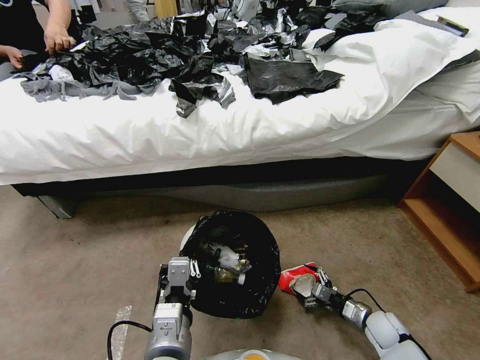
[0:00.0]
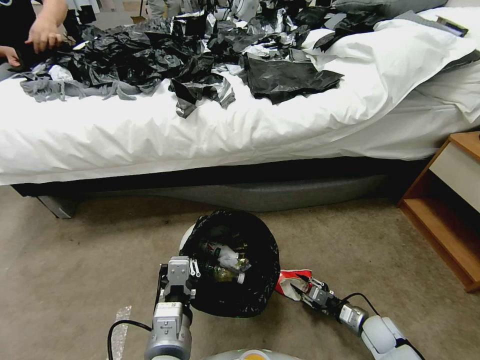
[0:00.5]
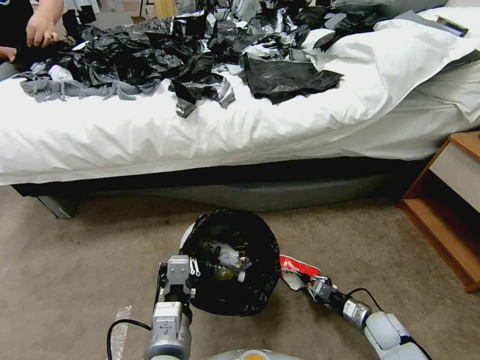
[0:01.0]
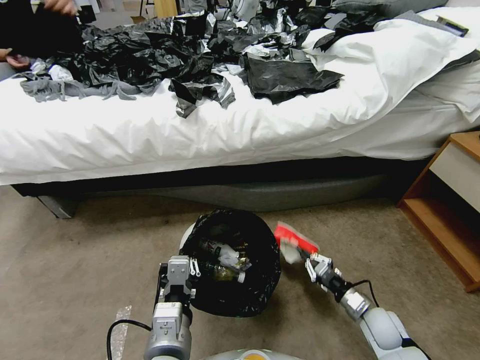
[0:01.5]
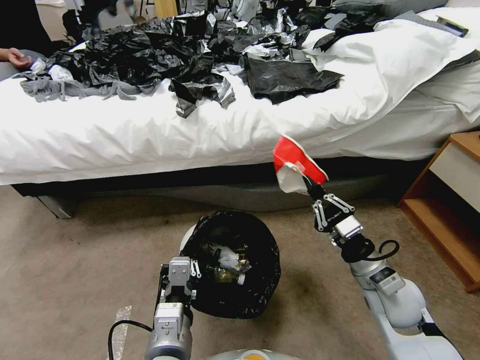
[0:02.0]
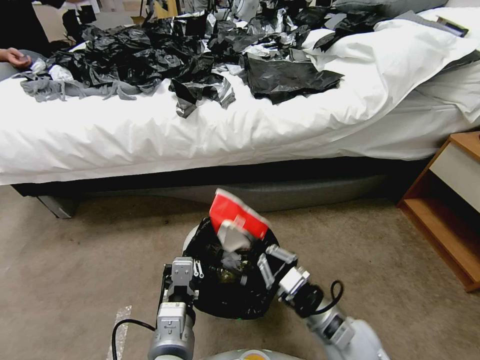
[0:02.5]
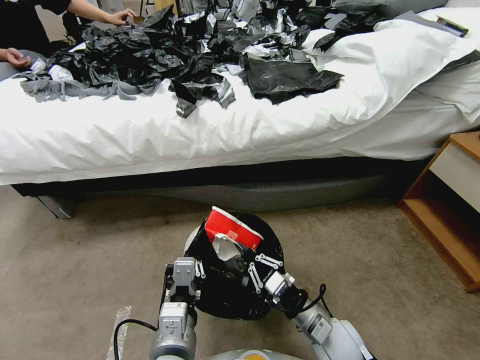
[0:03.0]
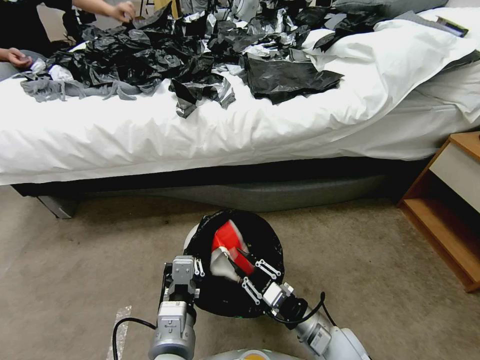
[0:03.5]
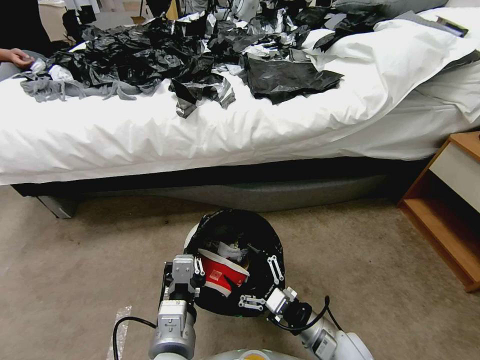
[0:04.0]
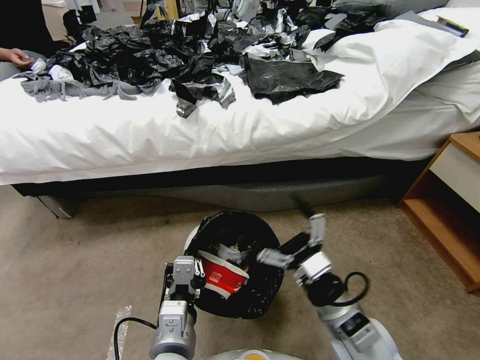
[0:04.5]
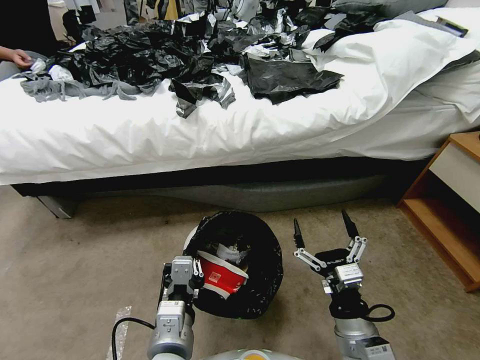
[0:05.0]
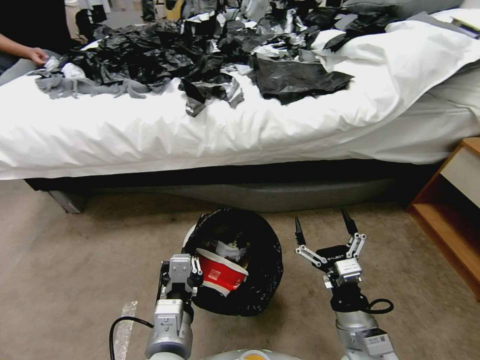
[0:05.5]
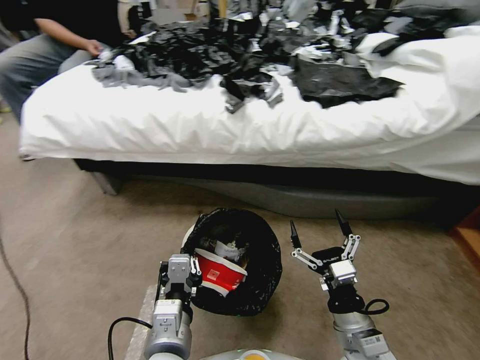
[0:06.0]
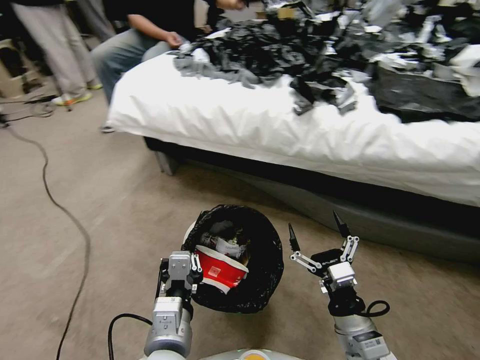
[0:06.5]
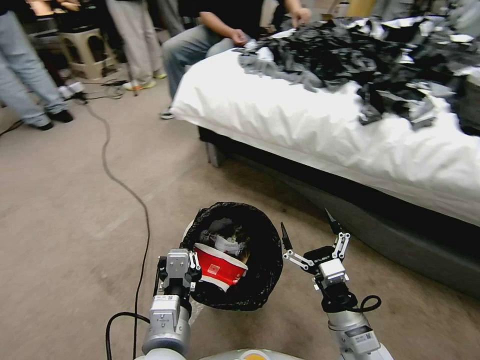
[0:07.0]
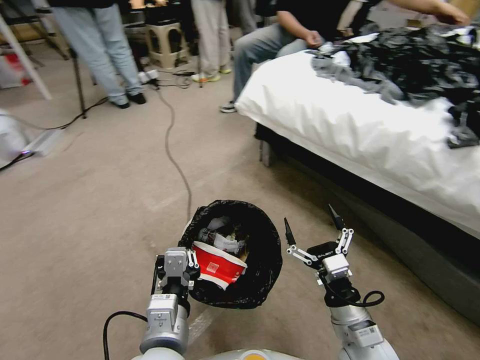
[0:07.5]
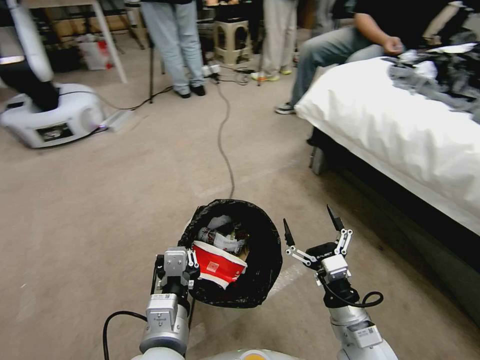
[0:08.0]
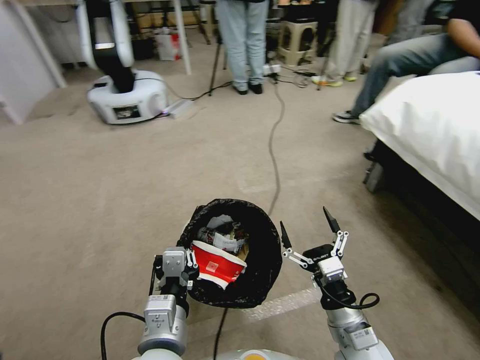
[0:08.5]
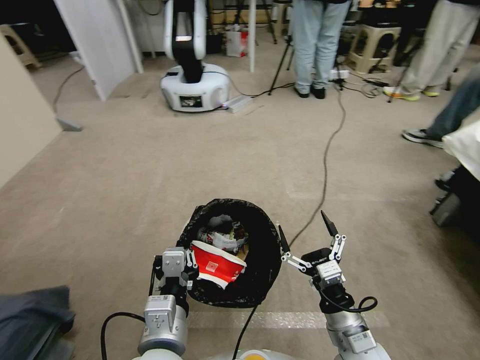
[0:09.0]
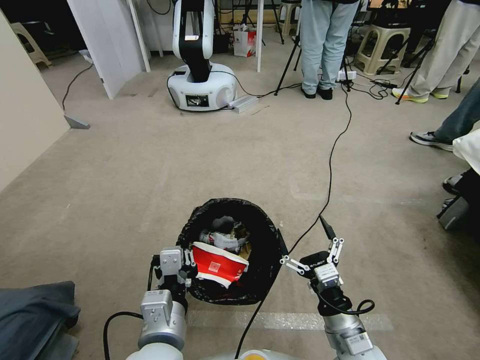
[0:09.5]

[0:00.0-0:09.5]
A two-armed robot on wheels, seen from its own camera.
Task of the whole recording: Pick up the trash bin, then pick up the garbage from the floor and place it into the trash bin.
0:00.0 to 0:02.0: The right gripper travels upward by some 25 cm, and closes its fingers.
0:02.0 to 0:04.0: The right gripper travels to the left, downward and backward by some 15 cm, and opens.
0:04.0 to 0:05.5: The right gripper goes about 5 cm upward.

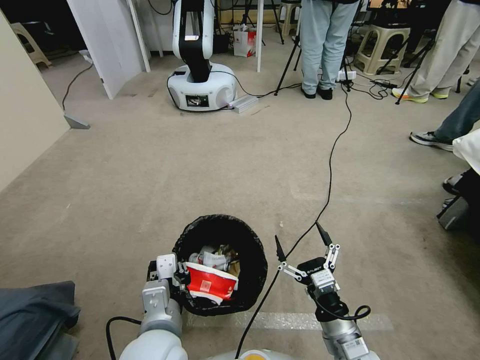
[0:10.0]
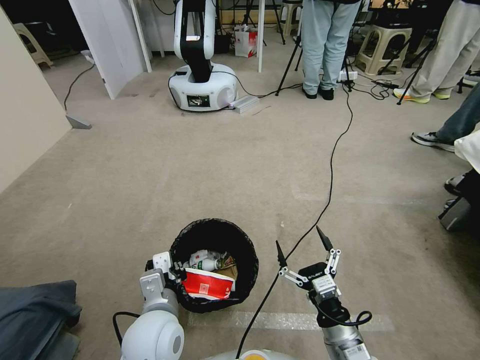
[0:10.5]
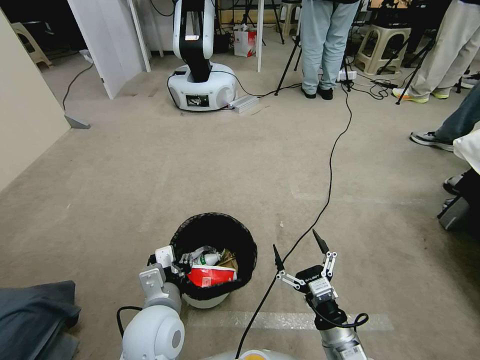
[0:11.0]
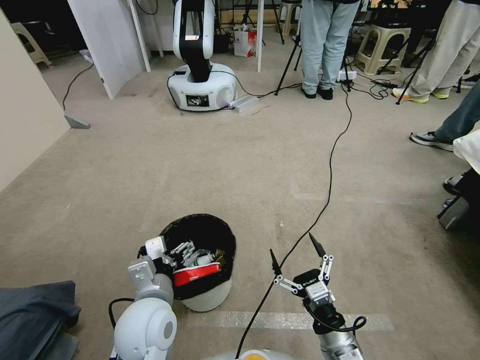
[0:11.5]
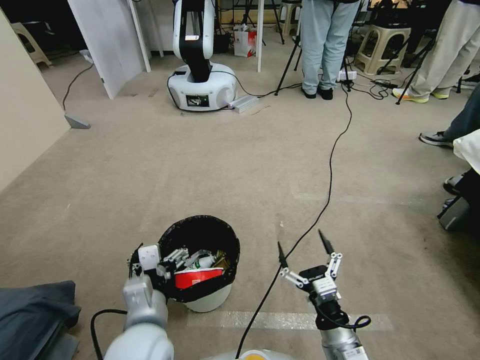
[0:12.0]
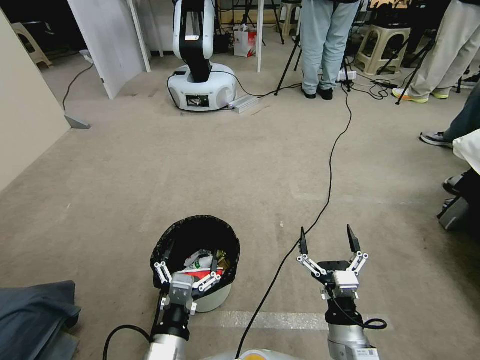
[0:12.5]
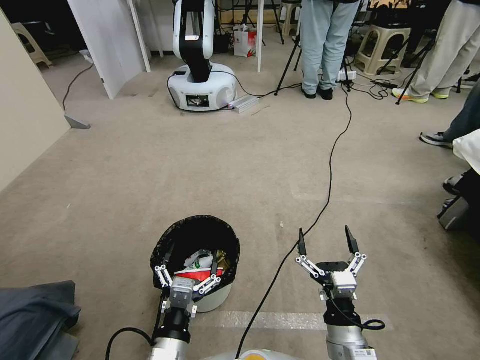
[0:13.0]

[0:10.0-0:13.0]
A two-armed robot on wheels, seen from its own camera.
Task of the whole recording: Pick up the trash bin, then pick up the garbage from the floor and place it into the trash bin.
0:10.0 to 0:11.5: The left gripper moves forward, roughly 5 cm, and opens up.
0:11.5 to 0:13.0: The left gripper shifts roughly 10 cm backward and downward.

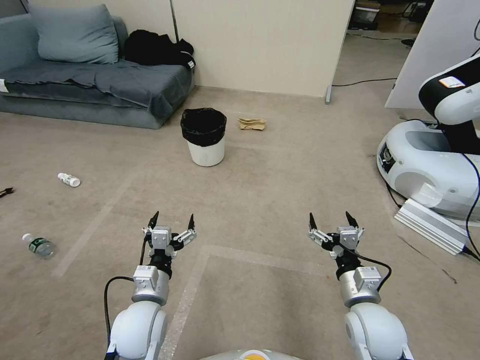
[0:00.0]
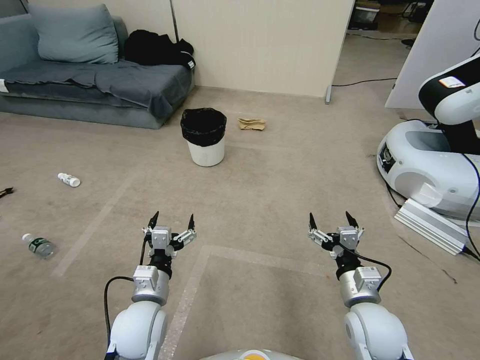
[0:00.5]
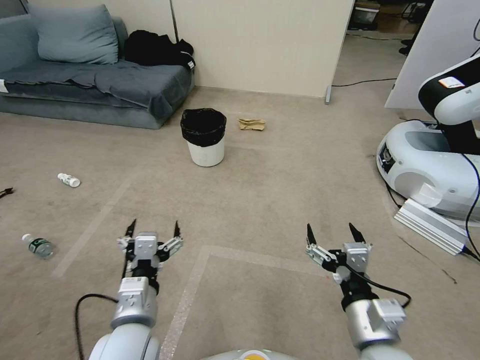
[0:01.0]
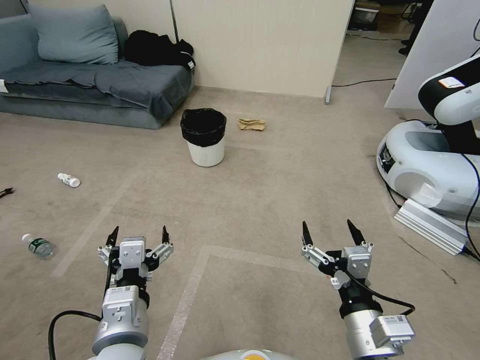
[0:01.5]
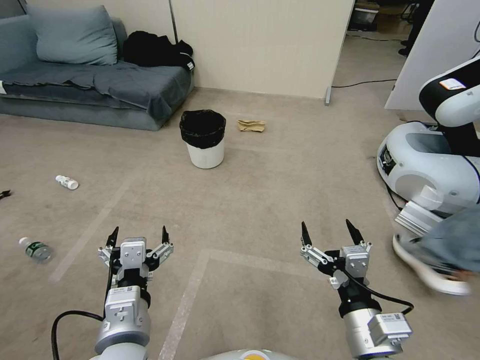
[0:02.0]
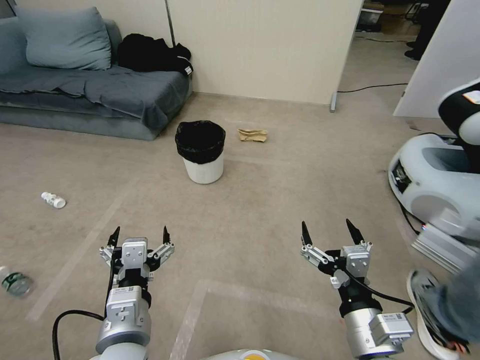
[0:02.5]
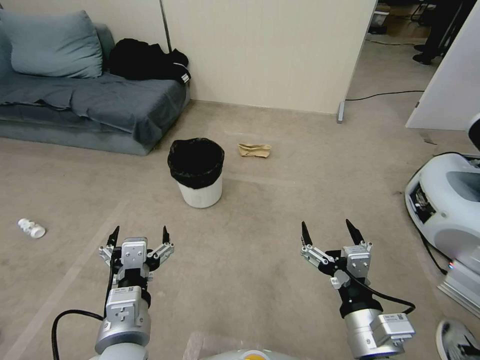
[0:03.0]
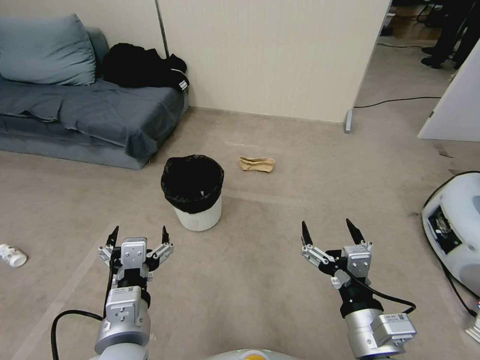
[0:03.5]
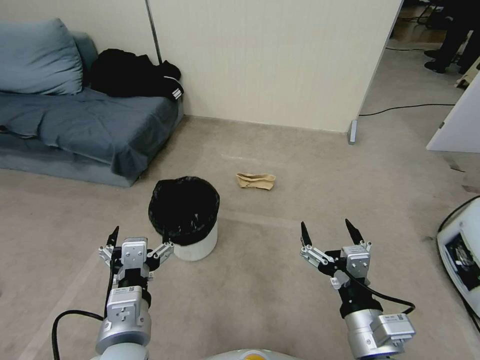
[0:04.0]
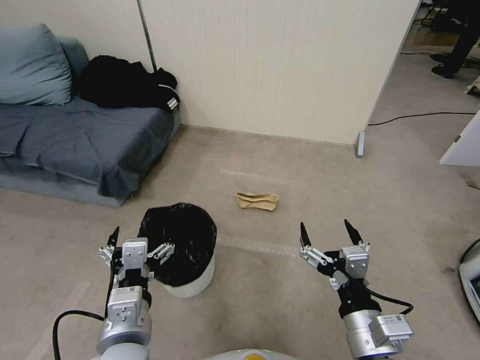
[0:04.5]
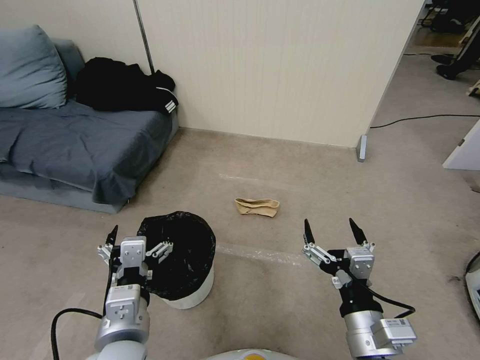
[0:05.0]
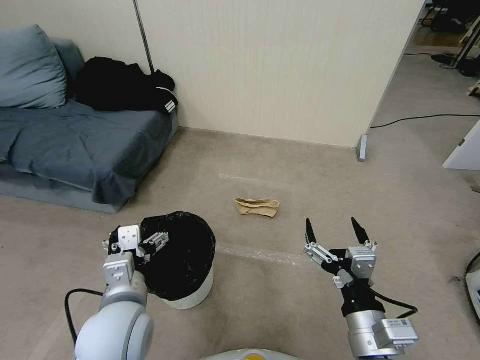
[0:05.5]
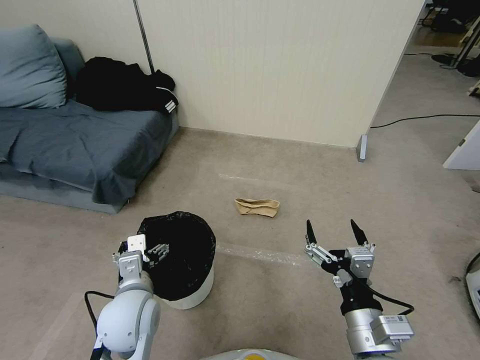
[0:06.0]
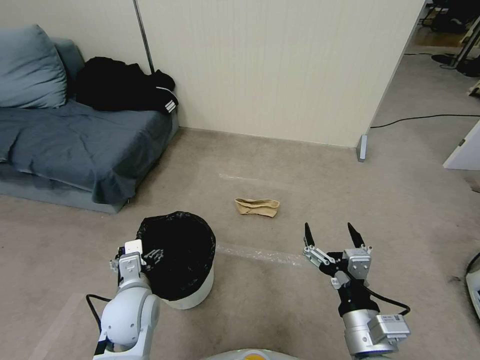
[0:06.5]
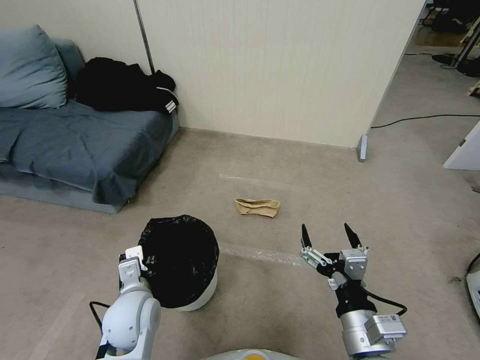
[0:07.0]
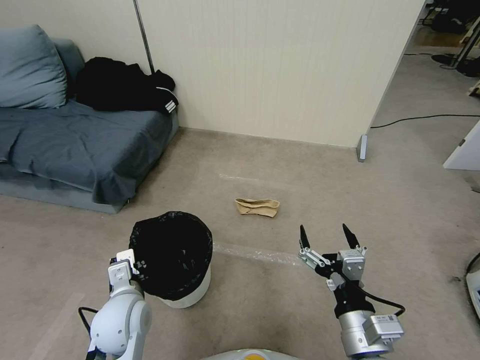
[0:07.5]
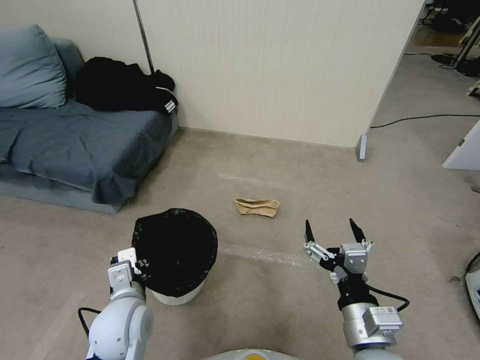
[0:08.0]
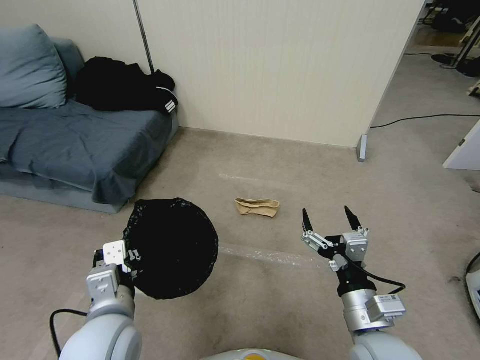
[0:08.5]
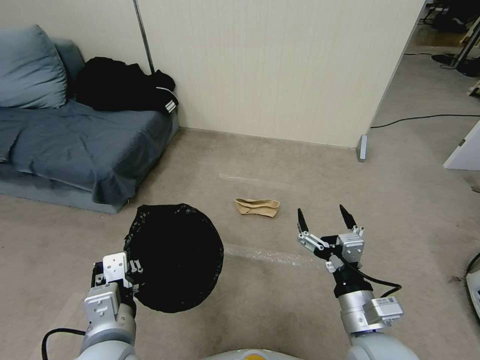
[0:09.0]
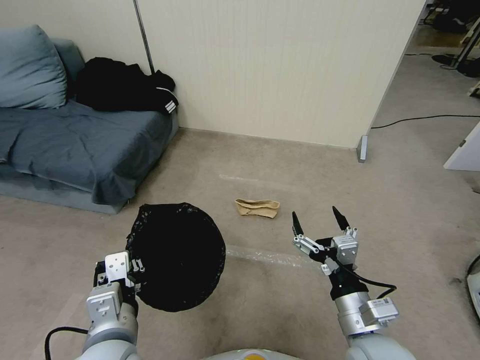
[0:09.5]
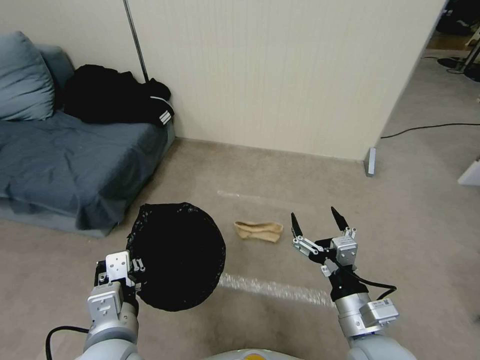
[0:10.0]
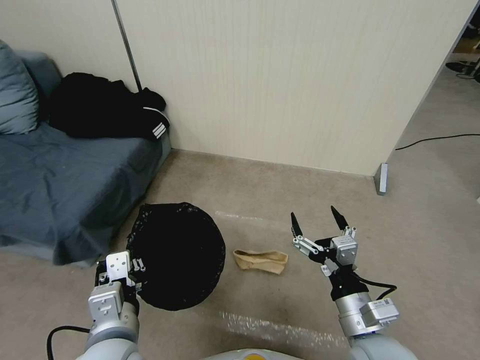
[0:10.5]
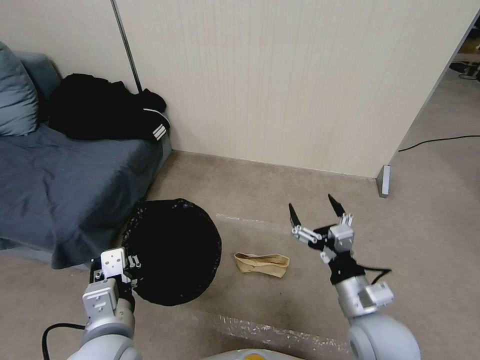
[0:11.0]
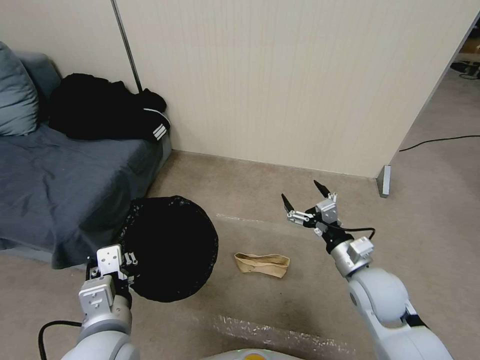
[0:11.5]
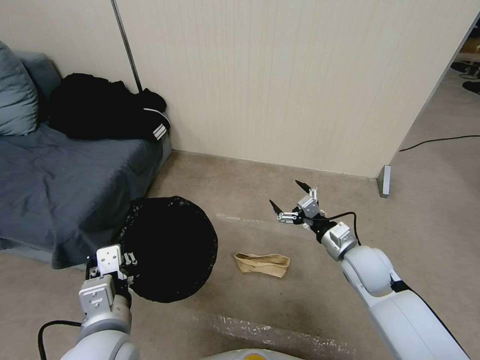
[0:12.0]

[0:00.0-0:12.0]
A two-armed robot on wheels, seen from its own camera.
Task of the whole recording: Pick up the trash bin, then pick up the garbage from the floor and place it into the trash bin.
0:04.0 to 0:06.0: The left gripper is displaced forward and downward by approximately 10 cm.
0:06.0 to 0:08.0: The left gripper closes.
0:08.0 to 0:10.0: The left gripper moves backward and upward, roughly 10 cm.
0:10.0 to 0:12.0: The right gripper moves forward, approximately 20 cm.

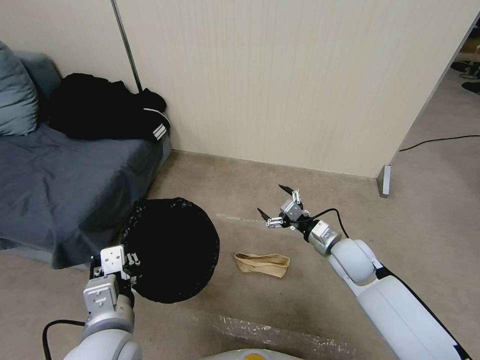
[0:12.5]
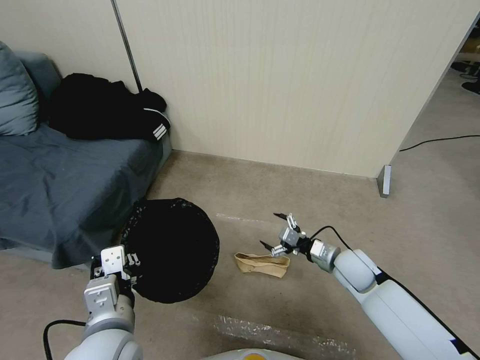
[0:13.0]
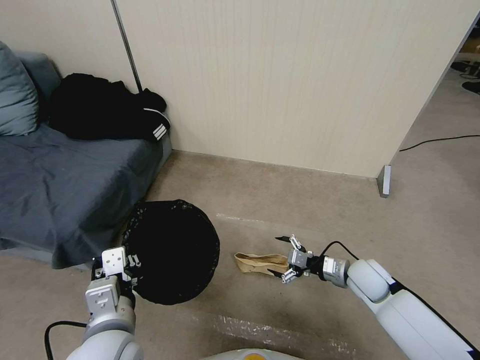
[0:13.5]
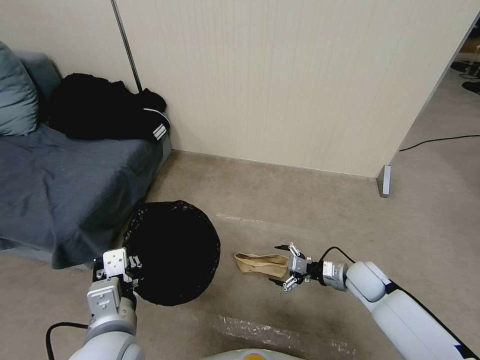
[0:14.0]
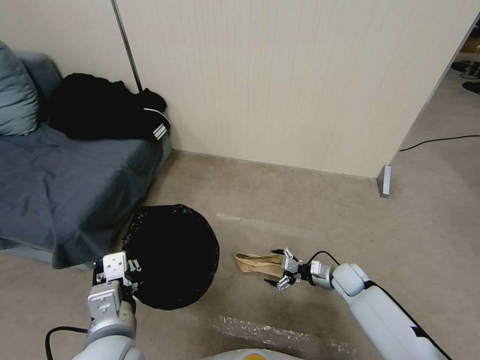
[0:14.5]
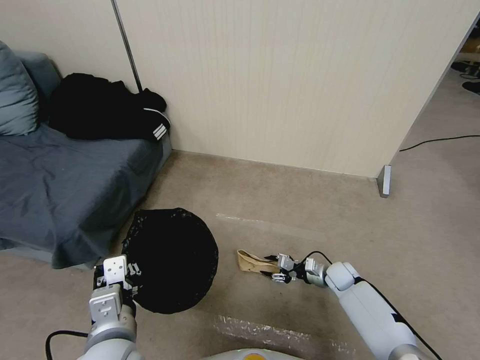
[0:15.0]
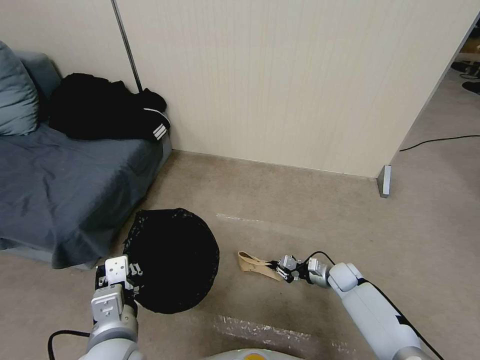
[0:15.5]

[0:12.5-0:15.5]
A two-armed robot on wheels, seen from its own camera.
Task of the whole recording: Pick up the trash bin, then pick up the garbage from the floor and place it into the trash bin.
0:12.5 to 0:14.0: The right gripper shifts about 15 cm downward and to the right.
0:14.0 to 0:15.5: The right gripper moves downward, roughly 10 cm, and closes up.
